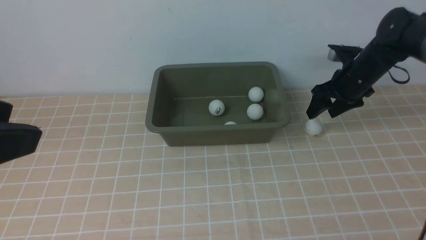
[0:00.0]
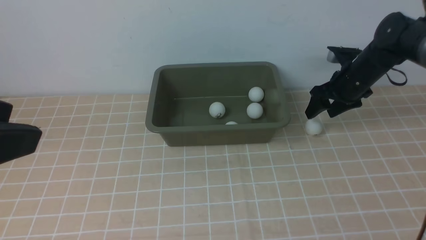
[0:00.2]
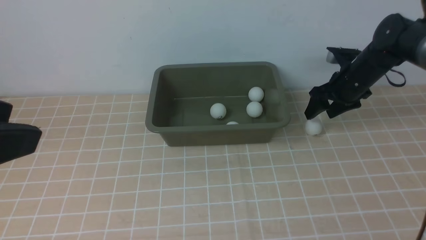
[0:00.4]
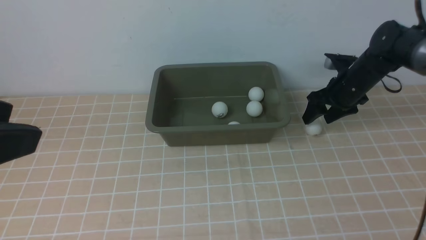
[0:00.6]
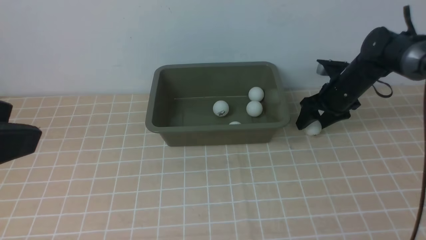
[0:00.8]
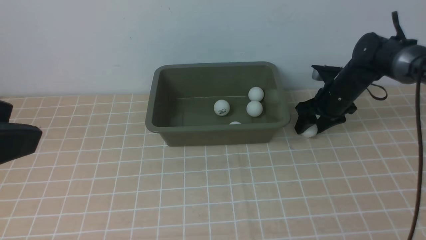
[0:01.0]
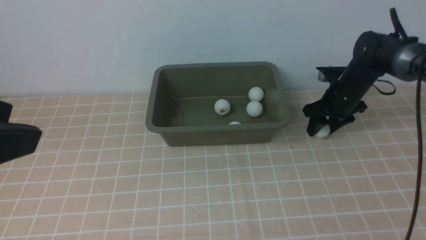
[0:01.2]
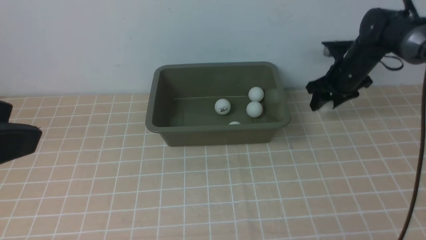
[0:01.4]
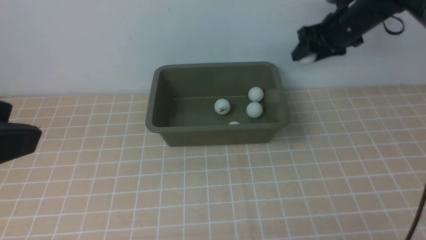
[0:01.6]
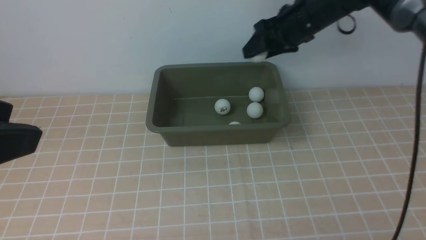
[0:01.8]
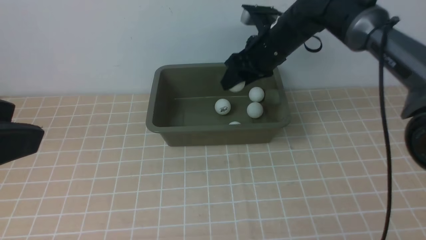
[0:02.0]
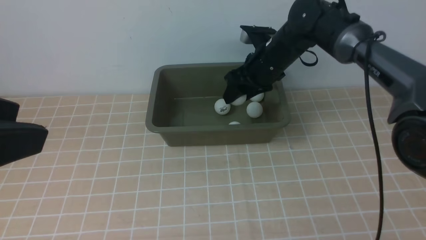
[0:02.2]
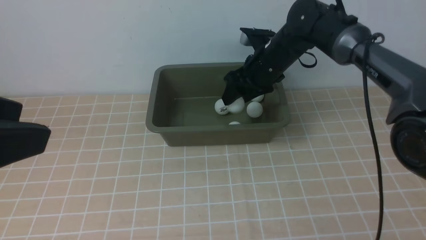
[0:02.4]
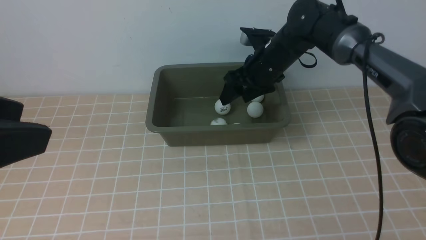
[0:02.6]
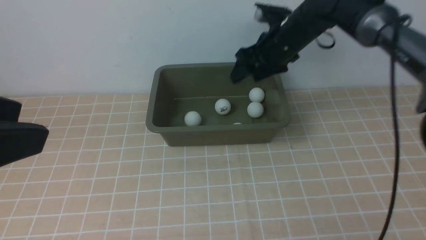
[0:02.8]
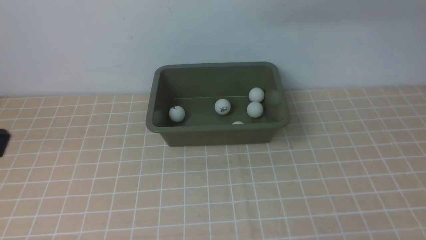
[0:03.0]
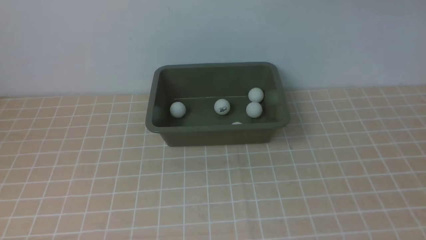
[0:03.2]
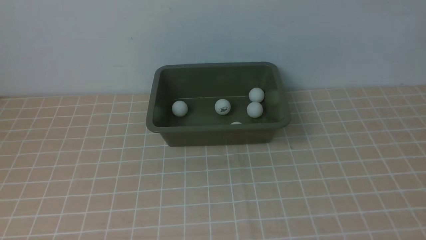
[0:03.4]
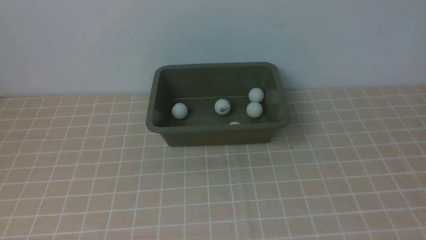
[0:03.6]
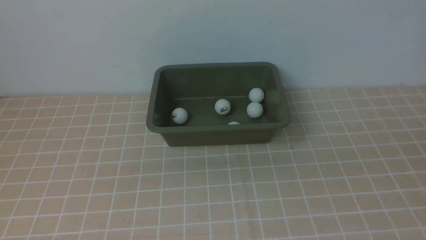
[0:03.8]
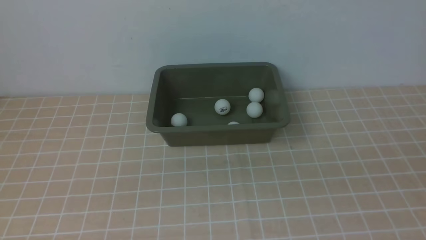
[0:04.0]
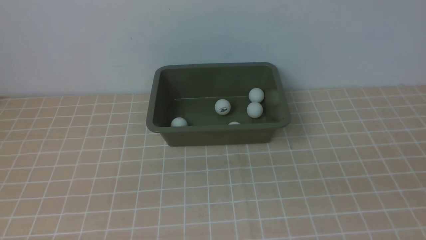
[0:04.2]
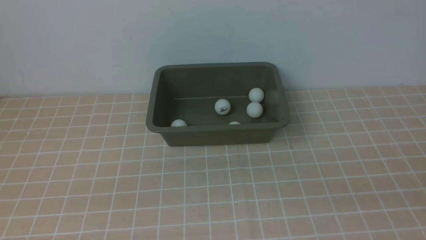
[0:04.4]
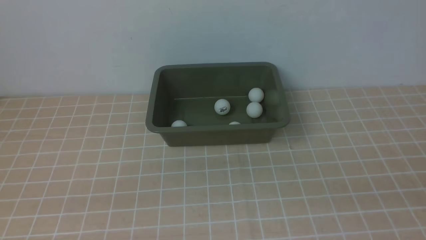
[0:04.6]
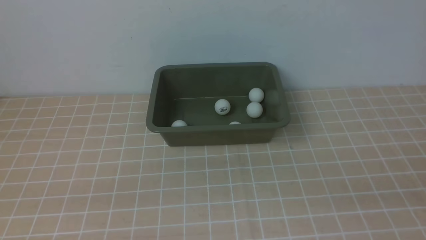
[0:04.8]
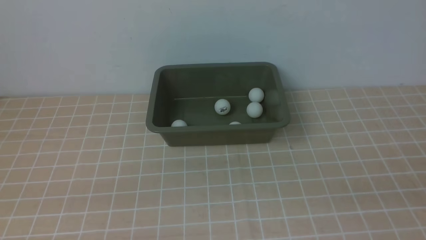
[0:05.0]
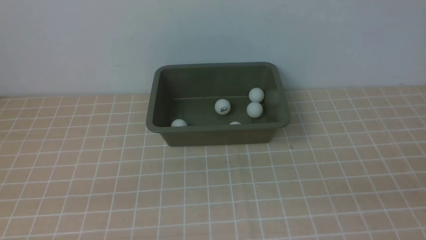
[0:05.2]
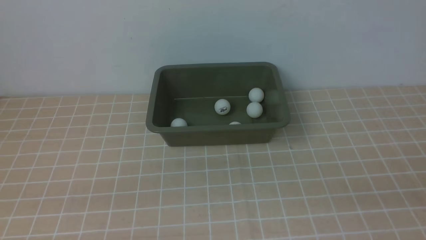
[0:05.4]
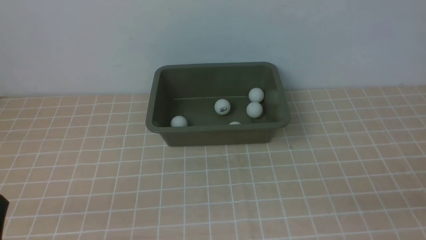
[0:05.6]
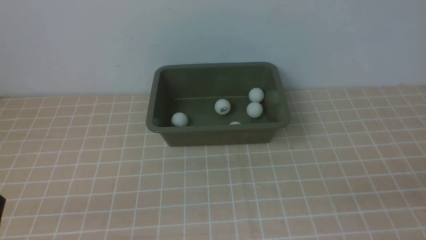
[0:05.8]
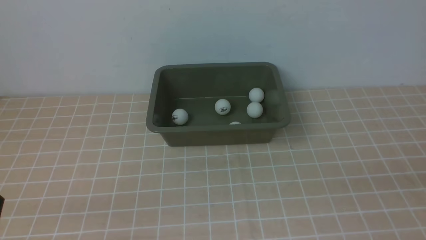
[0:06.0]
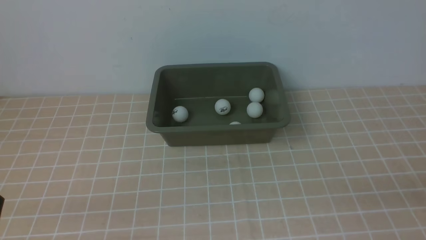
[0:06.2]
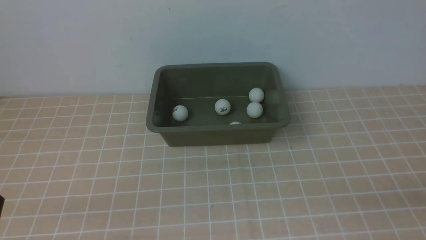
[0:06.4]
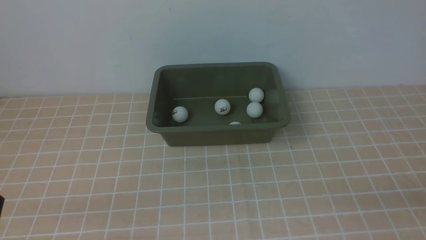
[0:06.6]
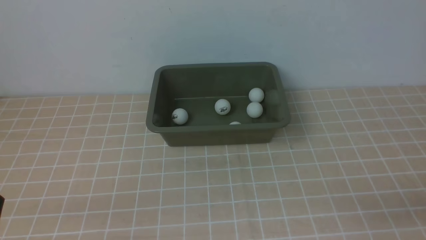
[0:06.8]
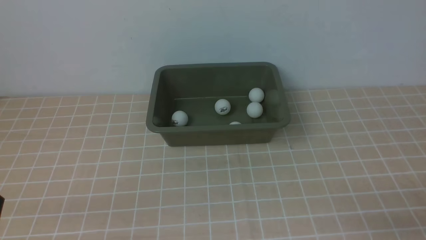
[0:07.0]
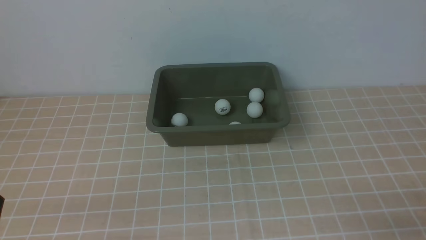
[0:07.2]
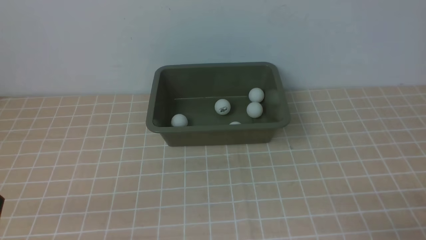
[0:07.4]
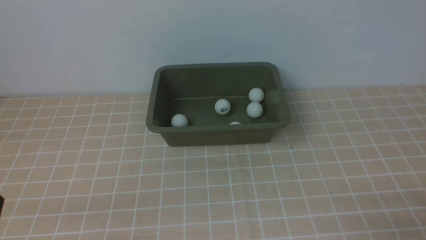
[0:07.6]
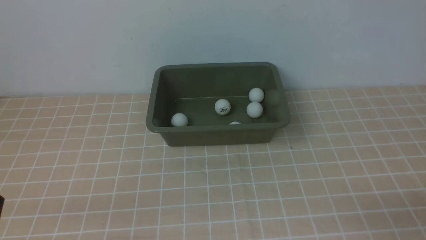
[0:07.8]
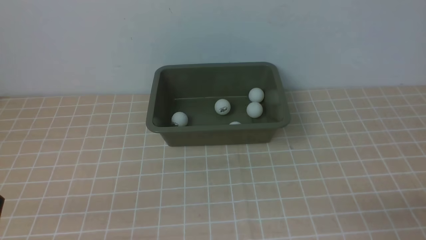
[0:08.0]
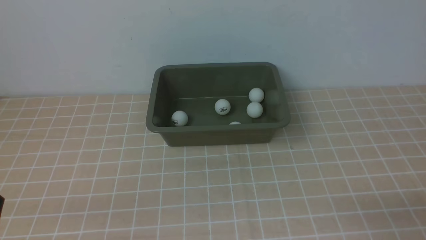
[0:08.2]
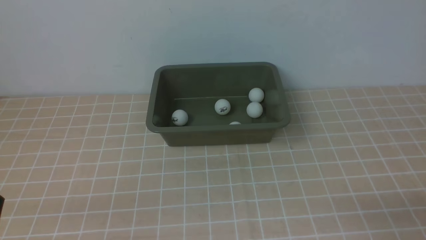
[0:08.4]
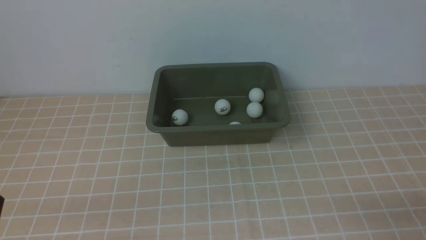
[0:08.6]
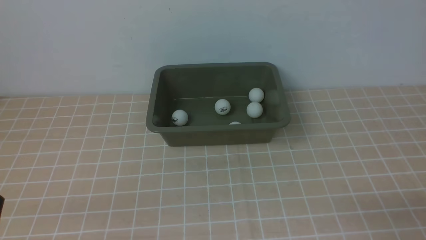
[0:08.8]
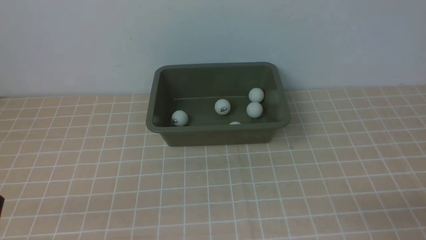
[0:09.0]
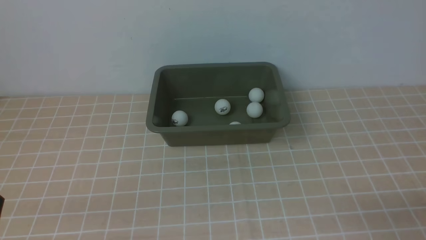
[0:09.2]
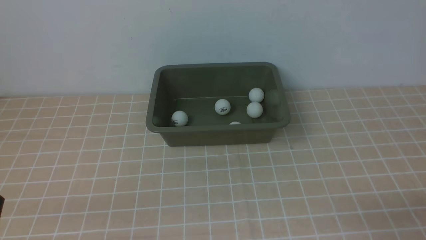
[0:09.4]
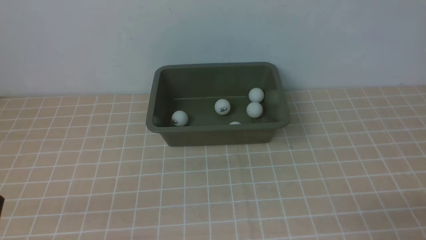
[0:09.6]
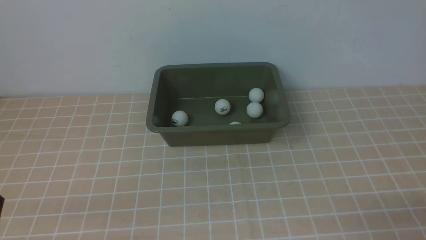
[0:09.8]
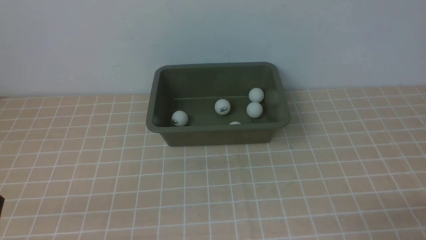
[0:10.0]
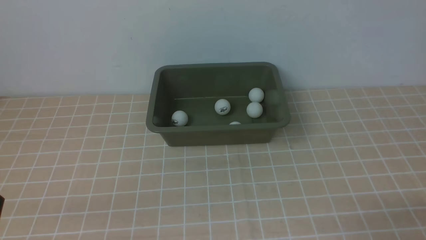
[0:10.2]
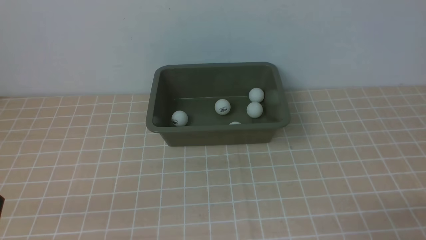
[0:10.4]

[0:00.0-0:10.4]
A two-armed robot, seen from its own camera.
Step, 0:01.6 to 0:02.8: use the right arm to put the table tennis ball into the box.
0:00.0 to 0:01.4: There are only small adjustments of the grippers.
0:01.4 to 0:03.0: The right gripper goes up and down, some 25 cm each way, reversing 2 times.
0:03.0 to 0:04.4: The left gripper goes some 15 cm downward.
